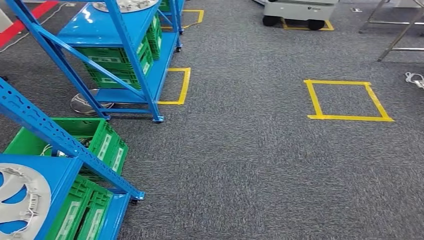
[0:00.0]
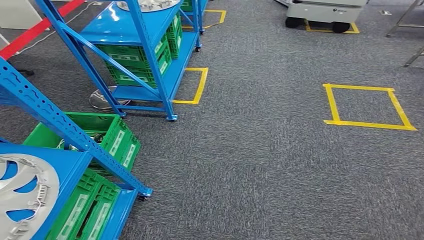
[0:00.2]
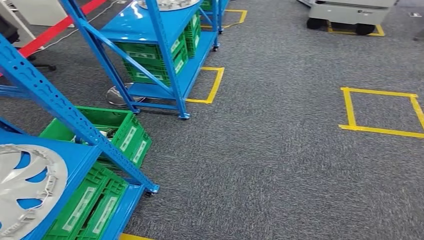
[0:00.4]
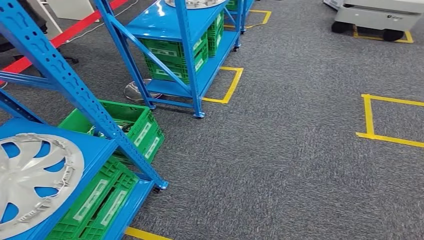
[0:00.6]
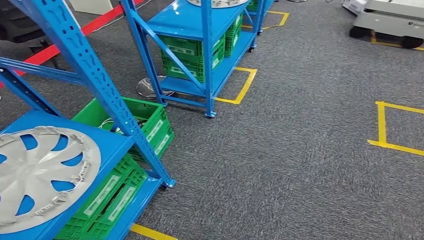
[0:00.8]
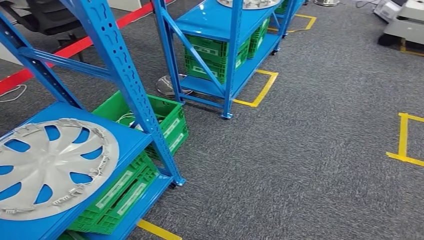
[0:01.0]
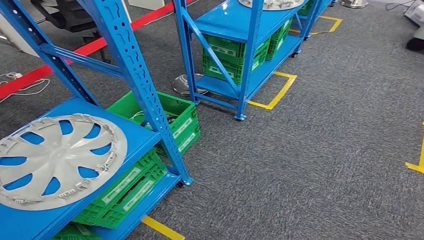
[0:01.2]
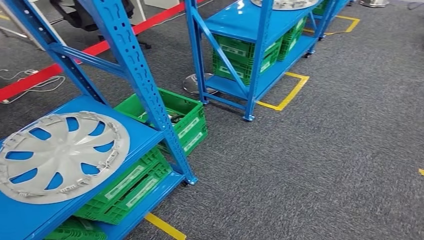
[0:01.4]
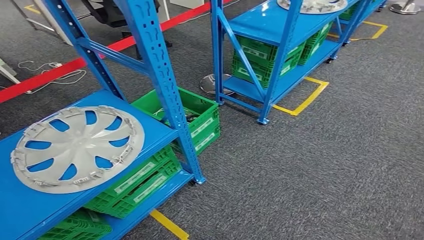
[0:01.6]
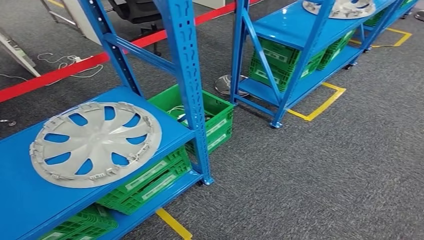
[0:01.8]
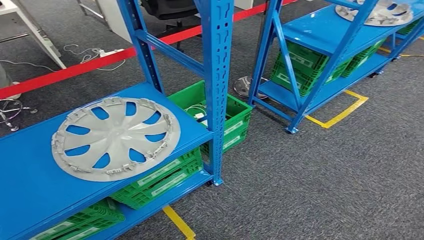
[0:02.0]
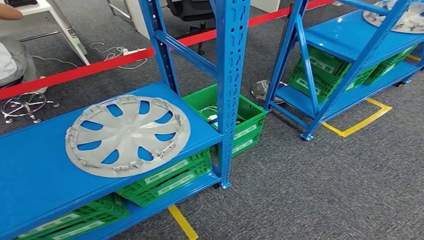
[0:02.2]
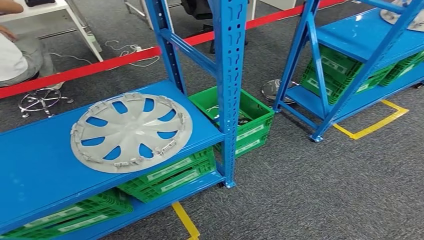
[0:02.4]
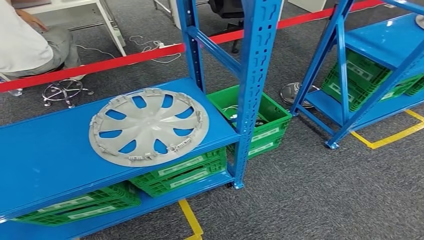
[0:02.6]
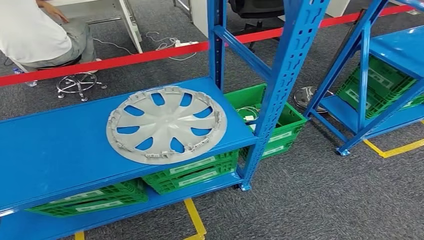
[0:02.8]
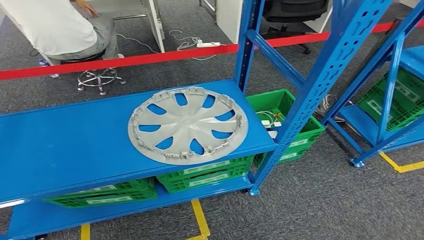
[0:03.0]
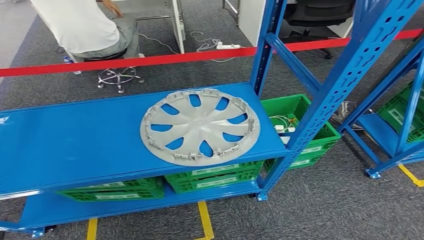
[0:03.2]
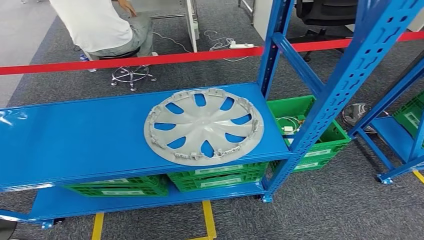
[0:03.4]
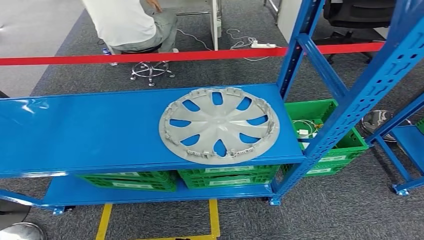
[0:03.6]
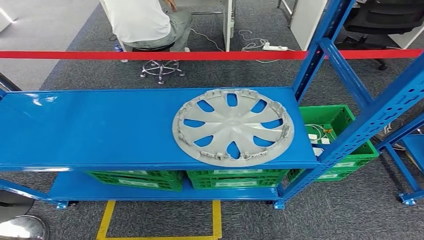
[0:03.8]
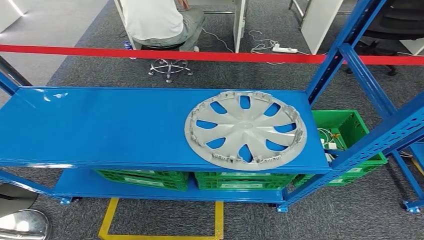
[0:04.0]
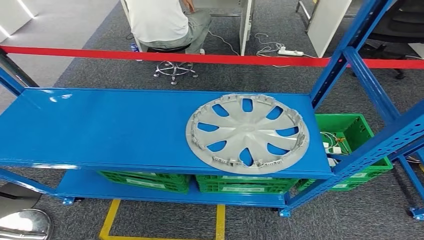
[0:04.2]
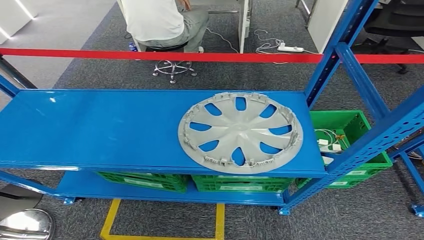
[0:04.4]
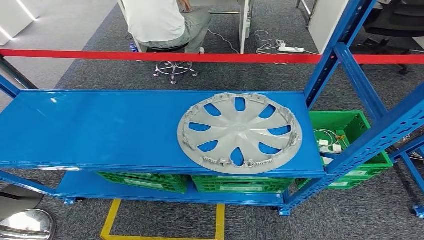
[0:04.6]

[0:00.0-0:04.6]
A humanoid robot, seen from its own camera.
Step, 0:00.0 to 0:04.6: Return to the initial position at the workbench.
